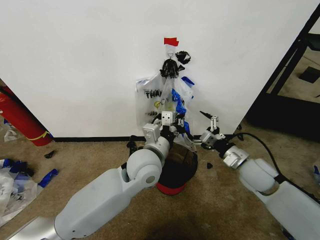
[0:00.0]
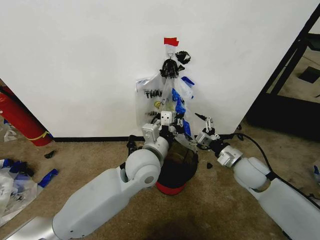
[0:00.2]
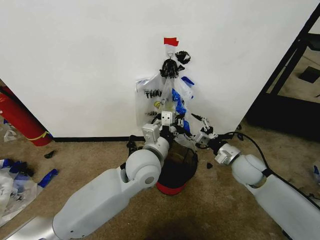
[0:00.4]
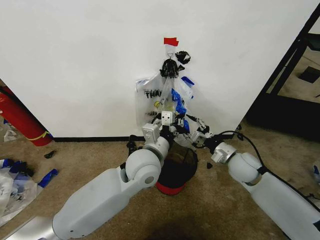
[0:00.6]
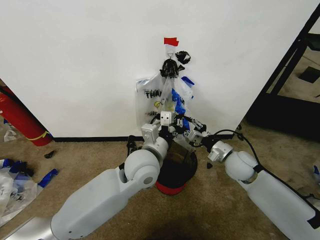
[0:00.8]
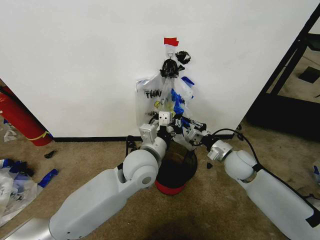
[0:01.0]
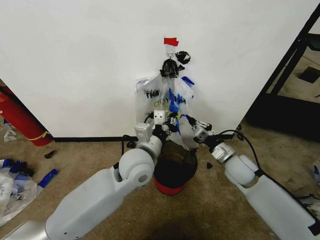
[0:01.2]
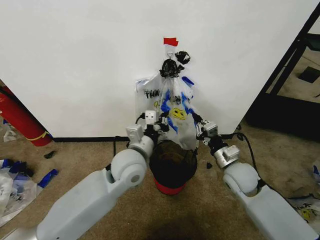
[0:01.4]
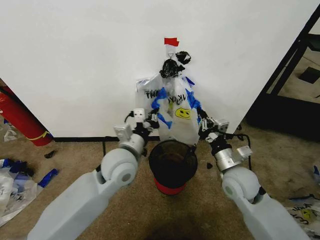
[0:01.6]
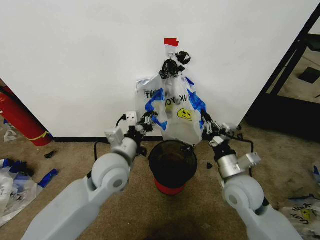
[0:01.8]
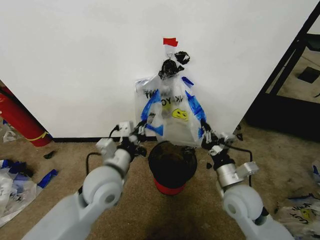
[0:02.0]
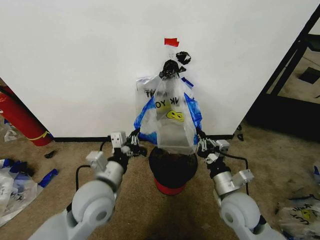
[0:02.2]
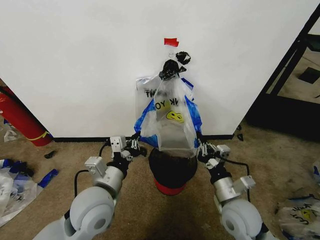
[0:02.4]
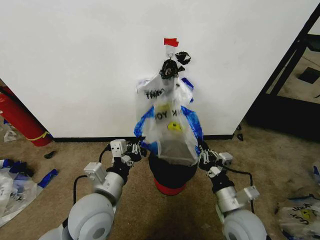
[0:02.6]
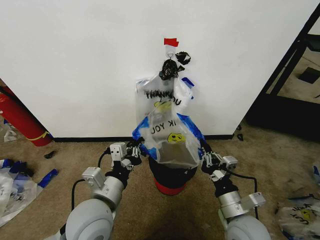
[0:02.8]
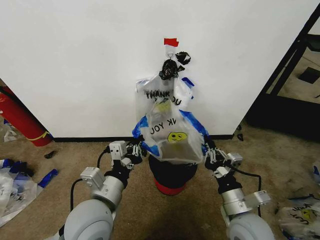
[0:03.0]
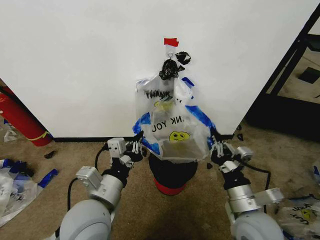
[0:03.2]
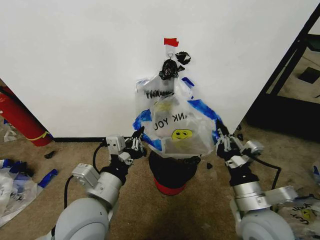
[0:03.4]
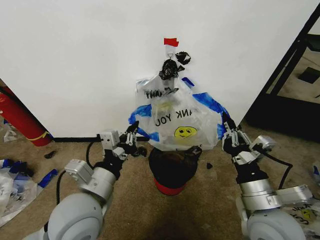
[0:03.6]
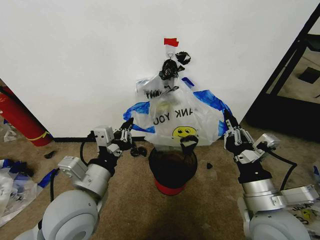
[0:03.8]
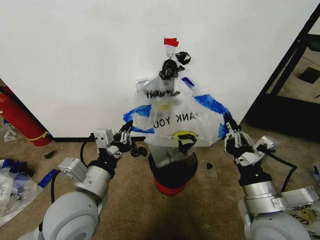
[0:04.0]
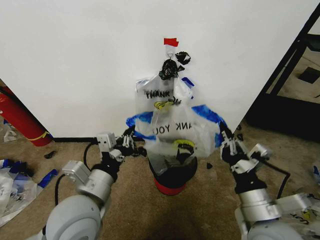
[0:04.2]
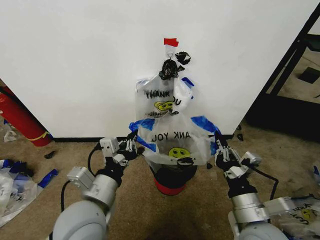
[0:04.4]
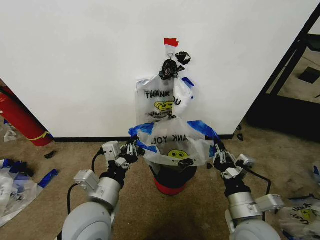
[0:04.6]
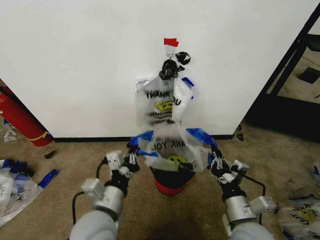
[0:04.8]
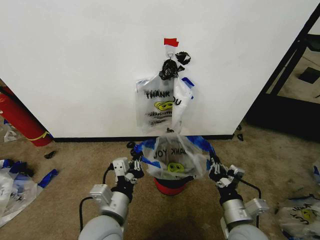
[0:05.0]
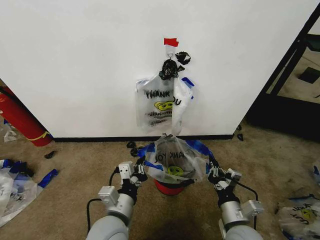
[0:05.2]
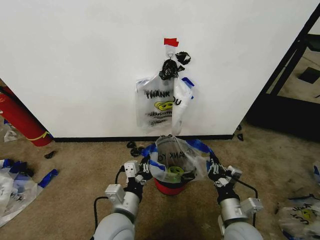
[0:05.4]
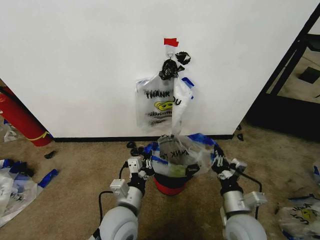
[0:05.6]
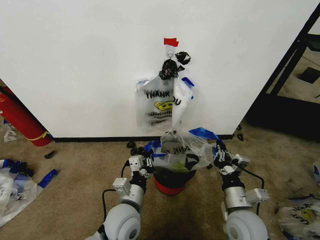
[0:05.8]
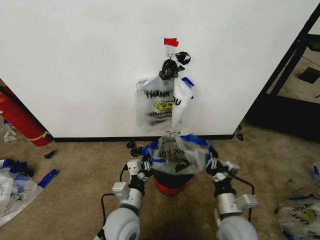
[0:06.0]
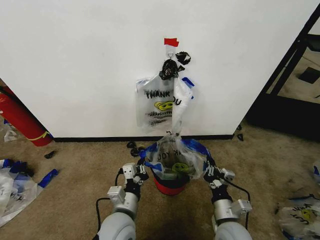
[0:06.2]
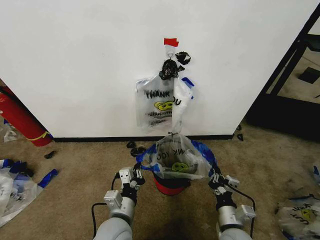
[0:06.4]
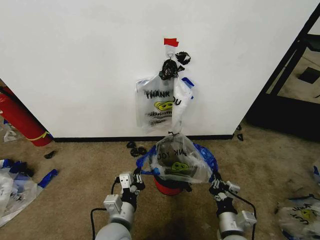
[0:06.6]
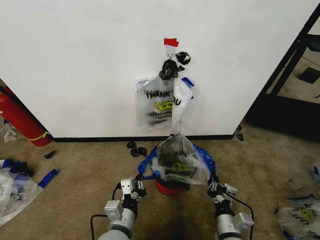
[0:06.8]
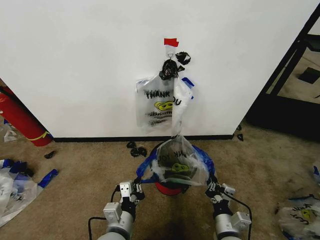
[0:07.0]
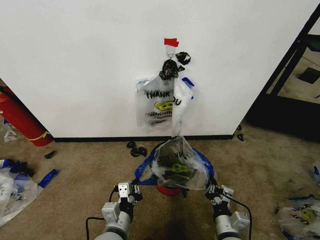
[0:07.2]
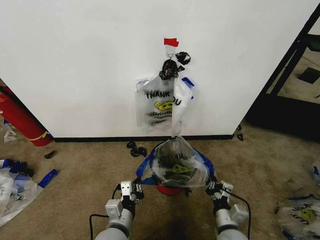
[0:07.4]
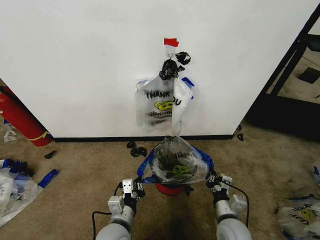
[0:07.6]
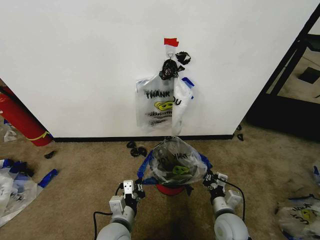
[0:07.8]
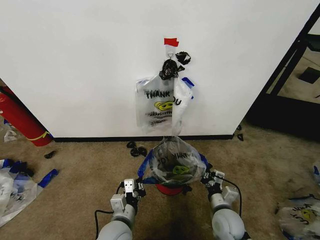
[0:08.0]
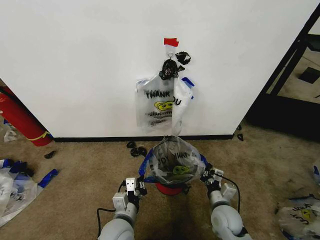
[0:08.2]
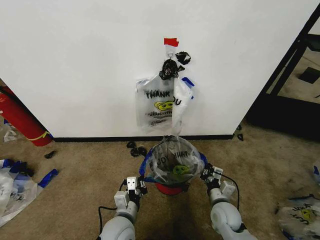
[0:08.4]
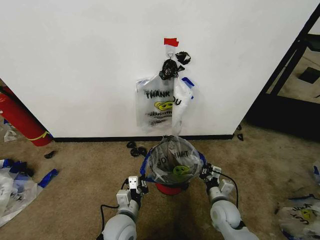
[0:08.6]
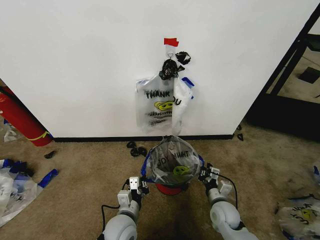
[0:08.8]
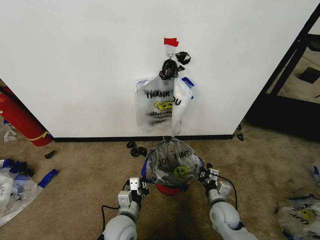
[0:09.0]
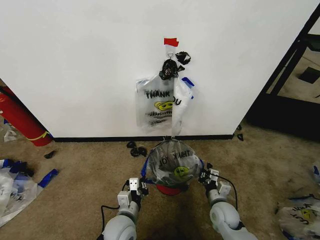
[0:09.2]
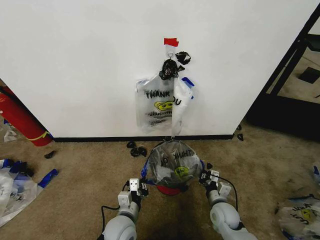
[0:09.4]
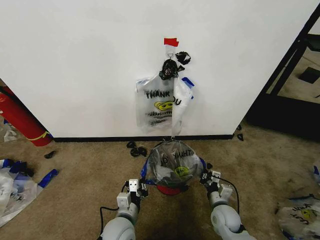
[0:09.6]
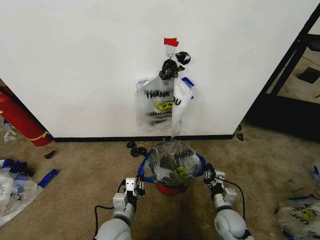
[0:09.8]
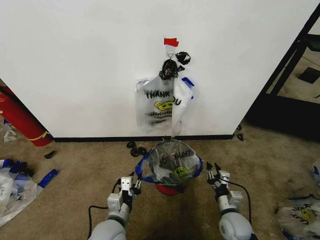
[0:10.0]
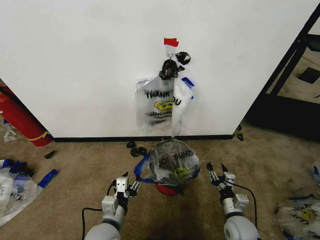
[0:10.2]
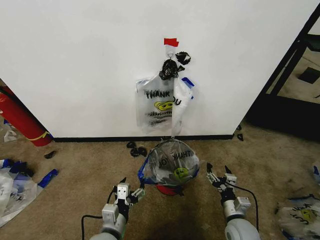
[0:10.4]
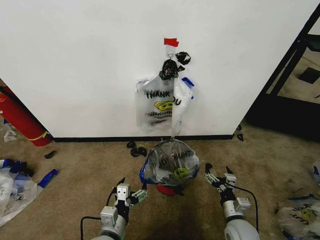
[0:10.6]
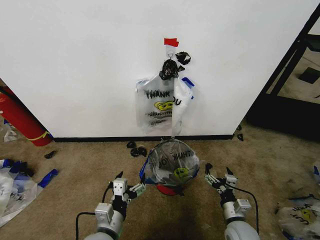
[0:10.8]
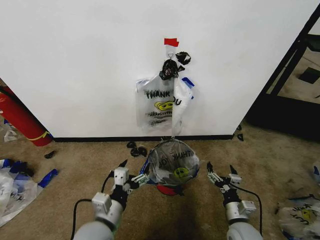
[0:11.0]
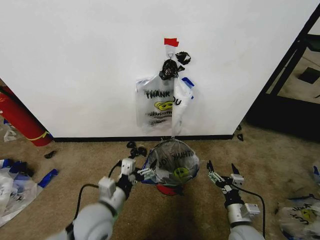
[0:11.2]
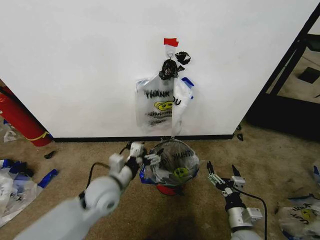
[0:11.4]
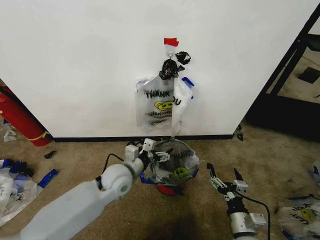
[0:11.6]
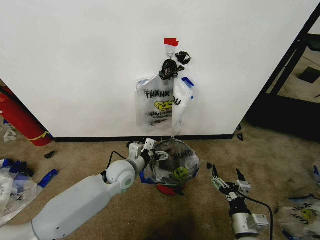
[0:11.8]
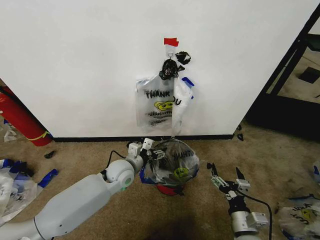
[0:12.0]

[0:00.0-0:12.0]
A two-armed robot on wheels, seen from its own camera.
Task of the whole recording: Pick up the garbage bag from the wall and place it over the trash bin.
0:00.0 to 0:01.6: Both grippers move to the left, about 5 cm. The right gripper closes.
0:01.6 to 0:03.0: The two grippers go about 15 cm backward.
0:03.0 to 0:04.4: The right gripper shifts some 5 cm upward.
0:04.4 to 0:06.0: The grippers both shift downward by approximately 10 cm.
0:06.0 to 0:07.6: The right gripper travels downward by approximately 5 cm.
0:07.6 to 0:09.0: The right gripper moves forward and downward, about 10 cm; the left gripper moves roughly 5 cm.
0:09.0 to 0:10.4: Both grippers travel together backward, some 5 cm. The right gripper opens. The left gripper opens.
0:10.4 to 0:12.0: The right gripper heads backward and upward, covering roughly 10 cm, while the left gripper goes about 20 cm forward.

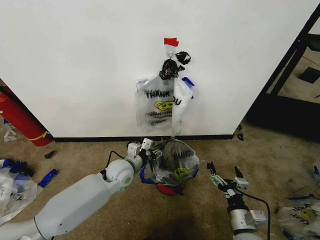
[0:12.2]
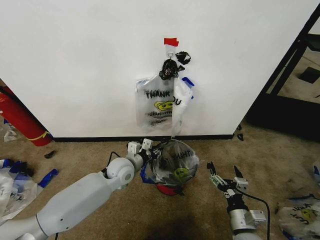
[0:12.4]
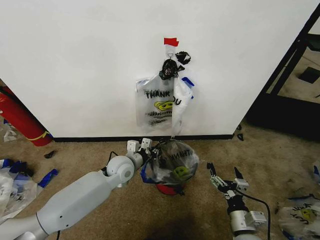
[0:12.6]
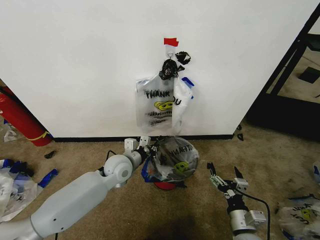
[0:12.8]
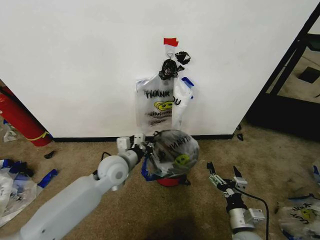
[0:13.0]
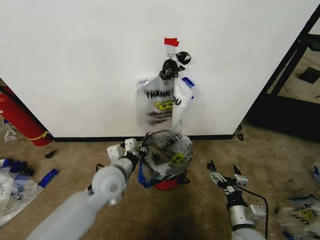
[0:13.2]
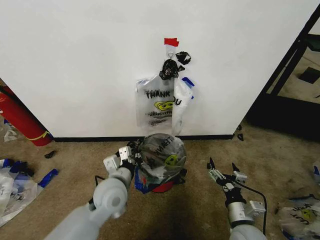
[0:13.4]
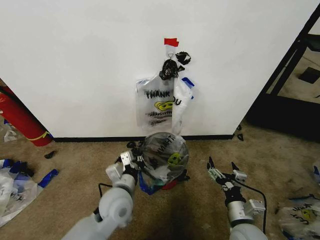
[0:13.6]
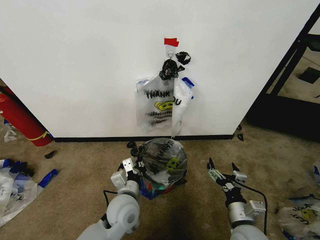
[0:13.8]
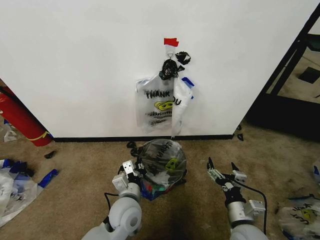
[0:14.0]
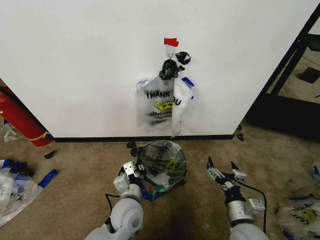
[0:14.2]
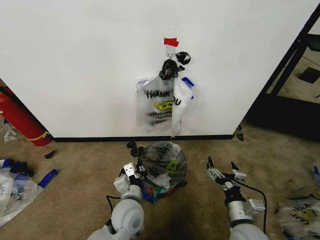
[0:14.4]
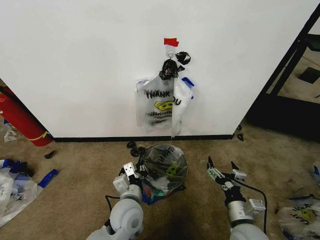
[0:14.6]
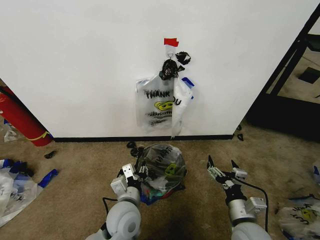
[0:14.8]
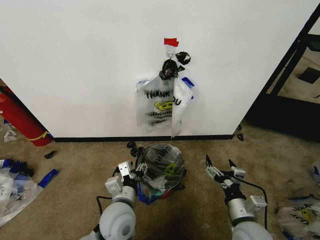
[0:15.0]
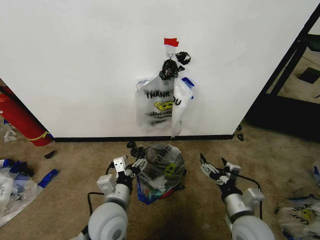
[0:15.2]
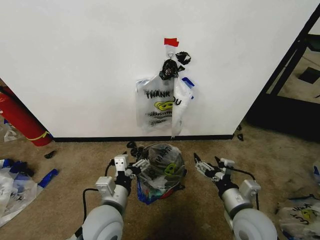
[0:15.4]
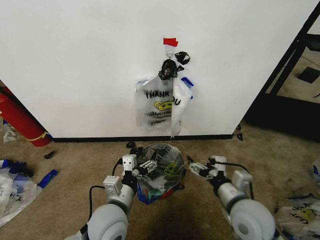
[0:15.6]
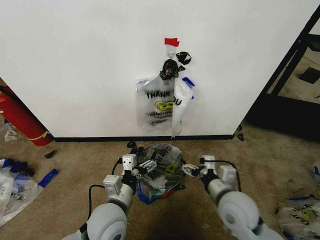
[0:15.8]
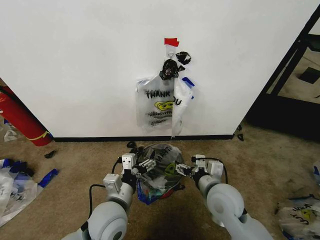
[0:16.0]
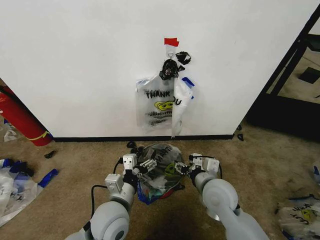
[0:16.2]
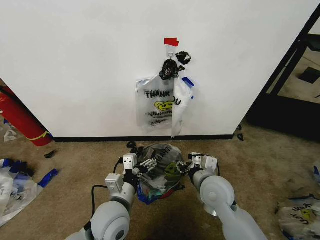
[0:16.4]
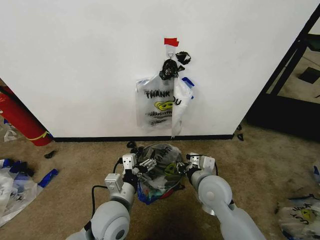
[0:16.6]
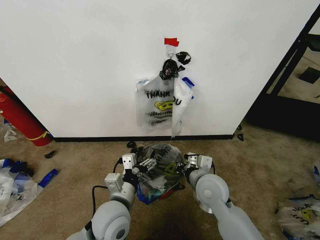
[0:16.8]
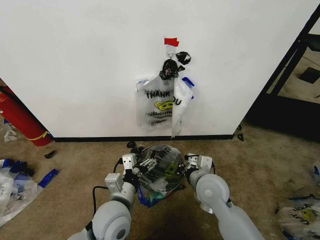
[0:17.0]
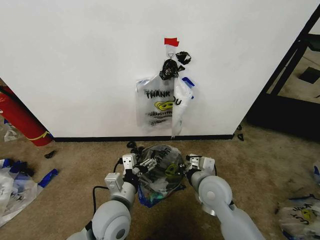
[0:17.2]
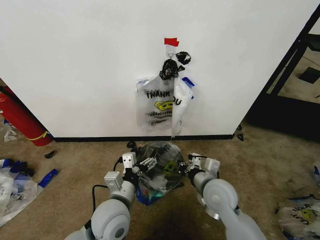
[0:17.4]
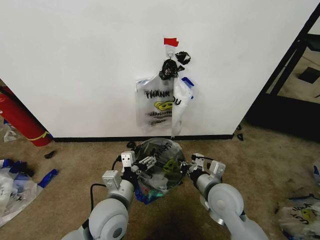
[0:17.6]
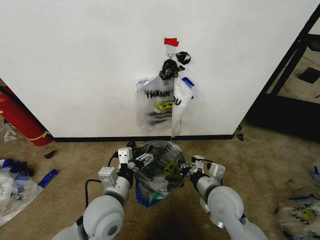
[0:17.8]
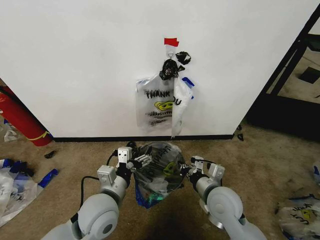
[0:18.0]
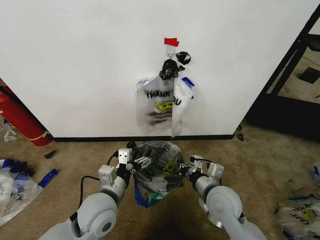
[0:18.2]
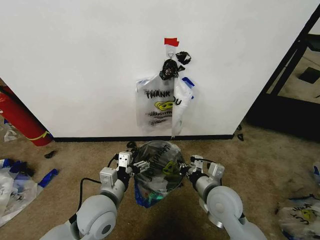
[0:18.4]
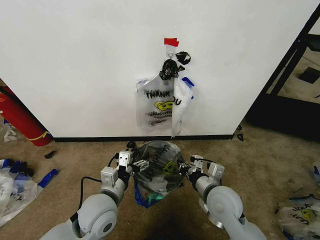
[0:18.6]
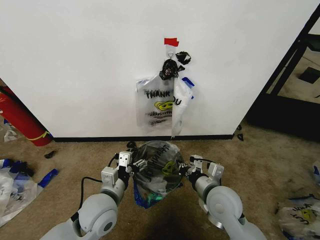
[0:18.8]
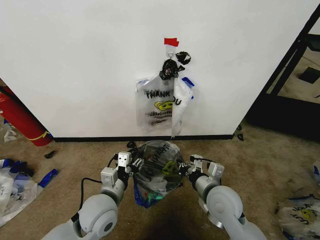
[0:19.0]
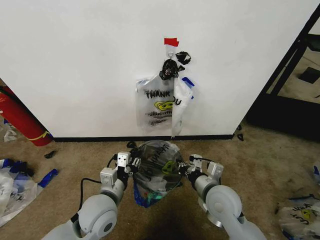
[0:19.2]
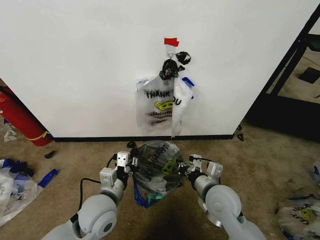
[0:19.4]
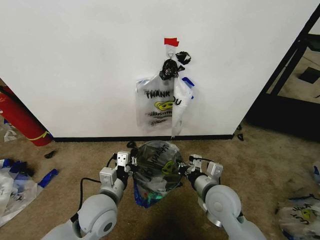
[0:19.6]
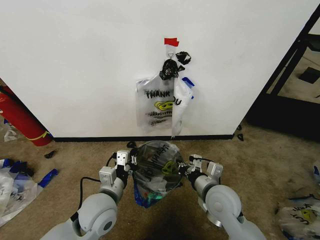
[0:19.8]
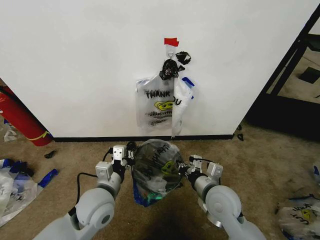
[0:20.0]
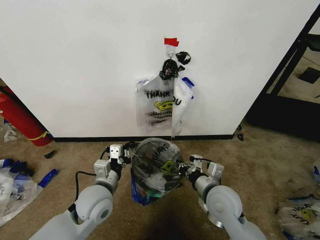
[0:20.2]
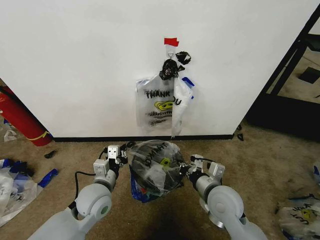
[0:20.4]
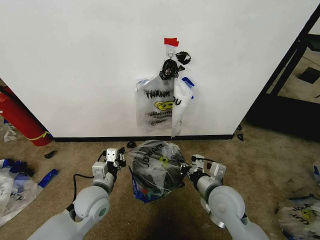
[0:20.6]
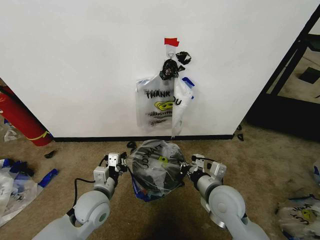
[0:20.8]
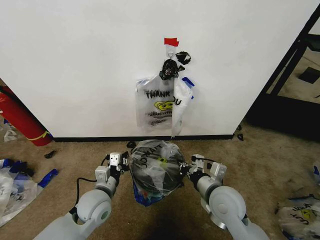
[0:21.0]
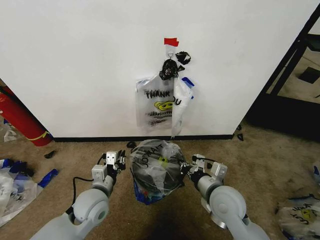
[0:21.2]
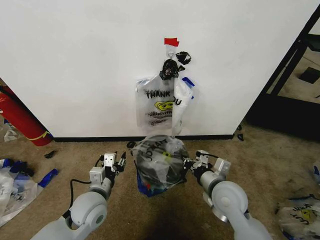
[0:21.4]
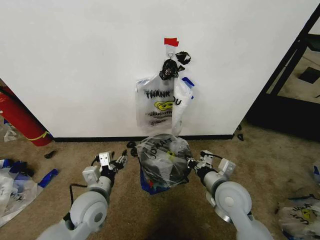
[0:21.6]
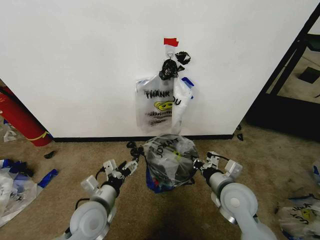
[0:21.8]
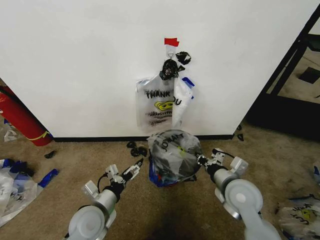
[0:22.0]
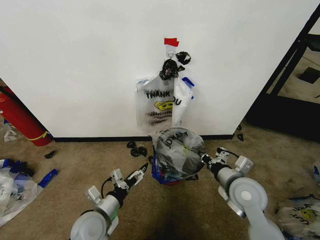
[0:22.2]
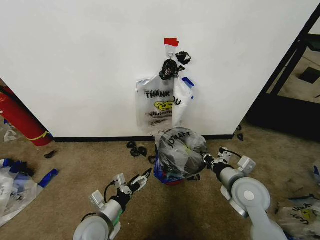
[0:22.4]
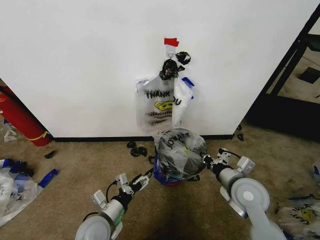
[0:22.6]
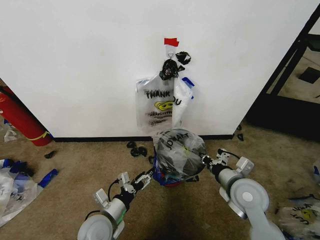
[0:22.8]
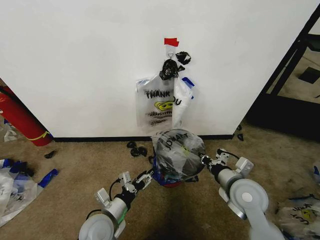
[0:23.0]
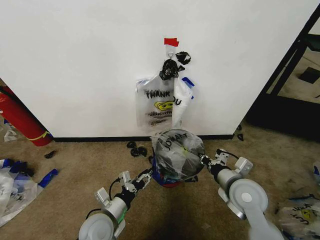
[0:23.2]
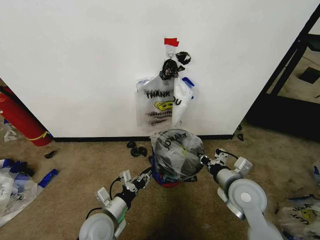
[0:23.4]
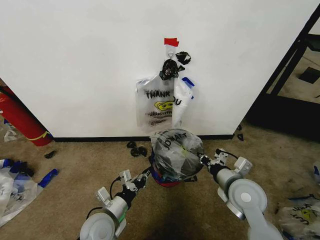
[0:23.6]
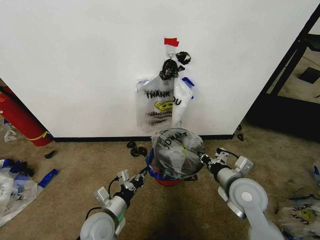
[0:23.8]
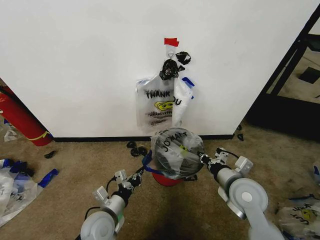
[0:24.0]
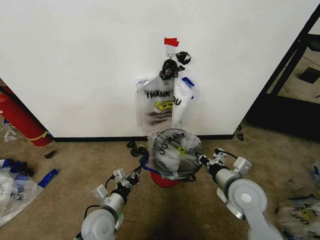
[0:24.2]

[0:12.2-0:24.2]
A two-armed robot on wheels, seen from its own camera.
Task of the whole recording: Pick up the garbage bag from the wall and place it over the trash bin.
0:12.2 to 0:13.8: The left gripper shifts approximately 15 cm backward, and closes its fingers.
0:13.8 to 0:15.2: The right gripper heads upward, covering some 5 cm, while the left gripper ends up approximately 5 cm from where it was, and opens.
0:15.2 to 0:16.6: The right gripper heads forward and to the left, covering approximately 15 cm, and closes up.
0:16.6 to 0:18.2: The grippers stay close to where they were, moving slightly.
0:18.2 to 0:19.8: The left gripper closes its fingers.
0:19.8 to 0:21.2: The left gripper moves roughly 5 cm.
0:21.2 to 0:22.6: The left gripper moves backward, approximately 5 cm, and opens. Meanwhile the right gripper shifts roughly 5 cm to the right.
0:22.6 to 0:24.2: The left gripper closes.
